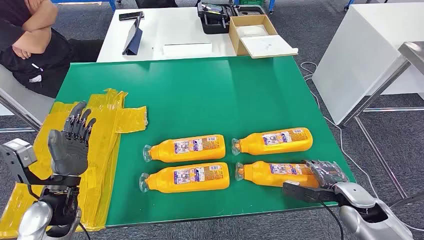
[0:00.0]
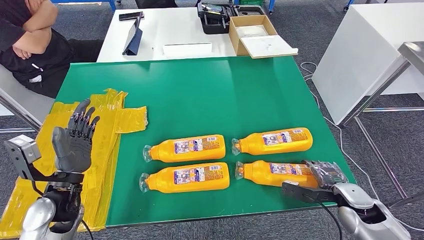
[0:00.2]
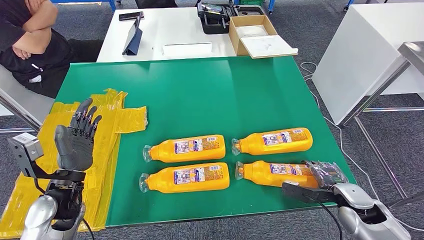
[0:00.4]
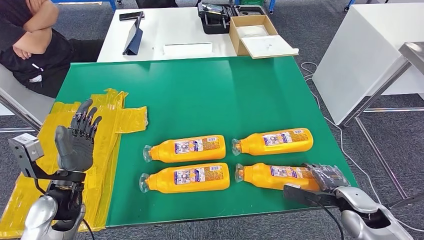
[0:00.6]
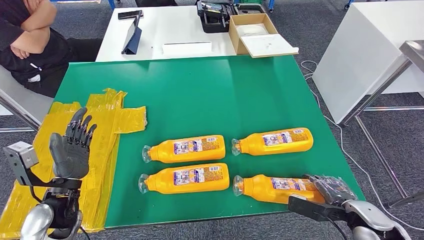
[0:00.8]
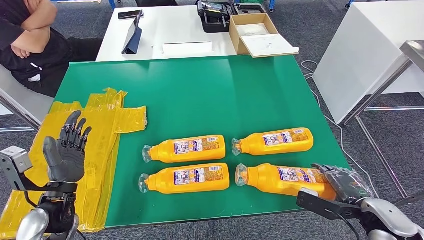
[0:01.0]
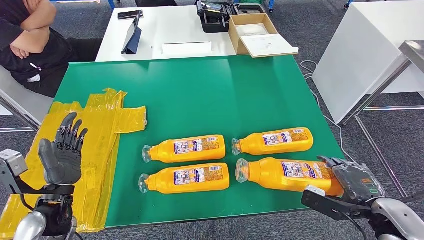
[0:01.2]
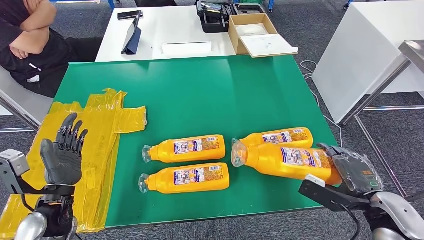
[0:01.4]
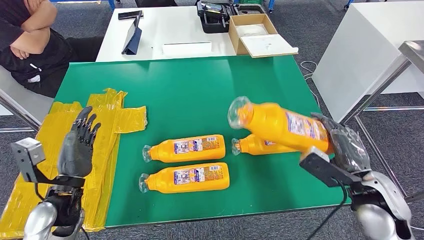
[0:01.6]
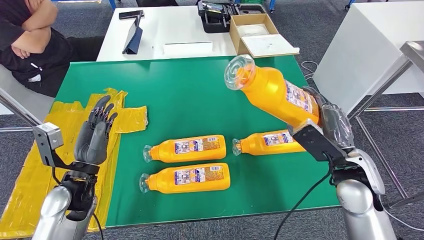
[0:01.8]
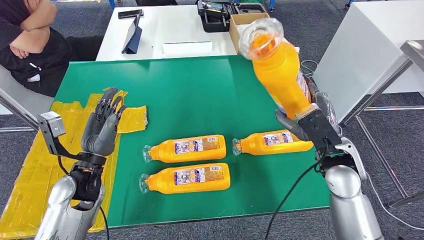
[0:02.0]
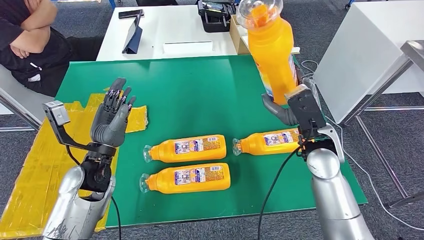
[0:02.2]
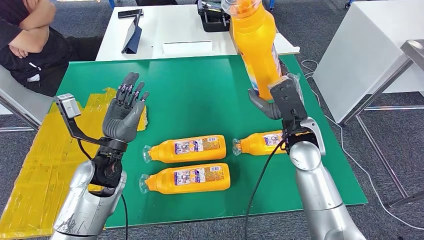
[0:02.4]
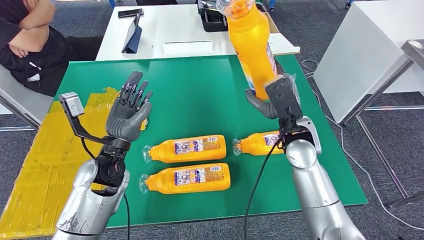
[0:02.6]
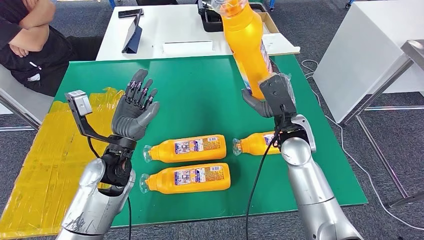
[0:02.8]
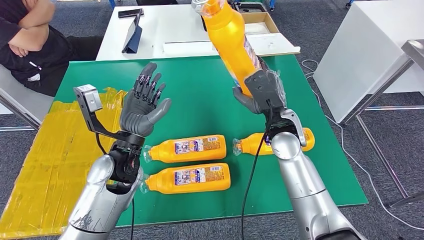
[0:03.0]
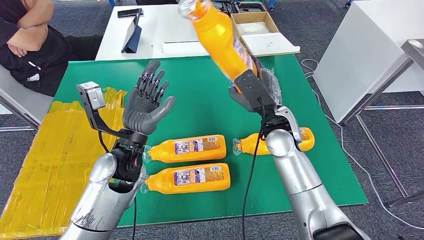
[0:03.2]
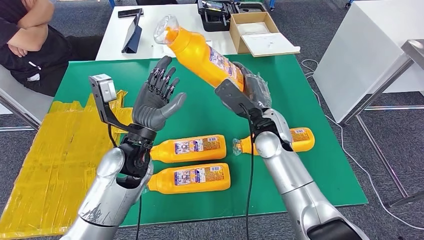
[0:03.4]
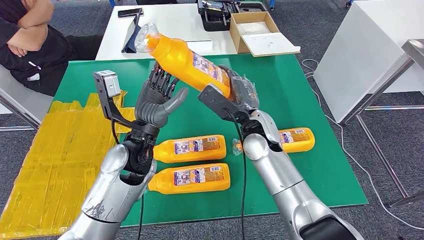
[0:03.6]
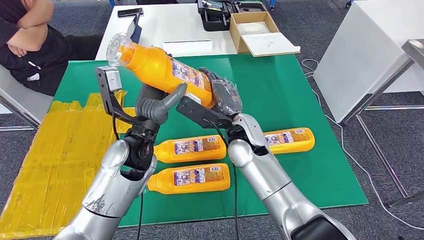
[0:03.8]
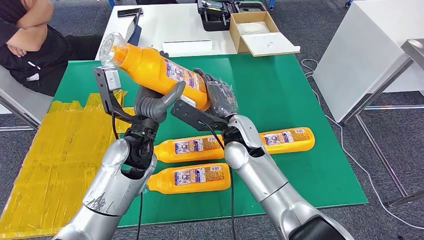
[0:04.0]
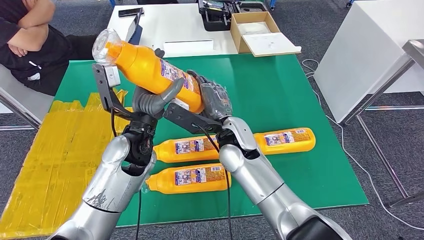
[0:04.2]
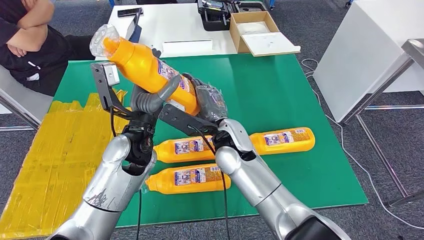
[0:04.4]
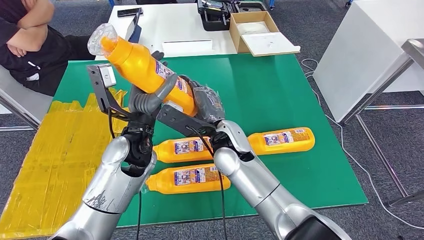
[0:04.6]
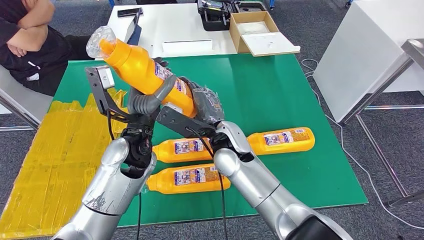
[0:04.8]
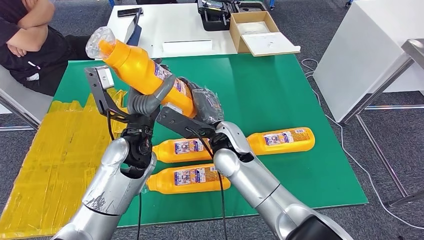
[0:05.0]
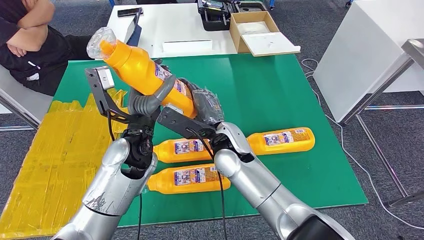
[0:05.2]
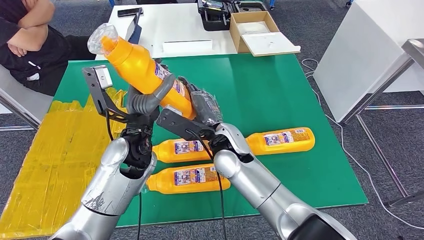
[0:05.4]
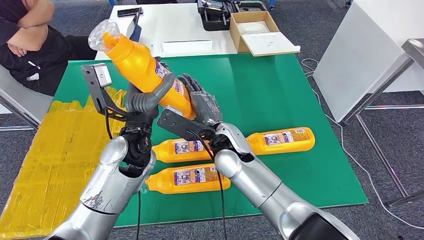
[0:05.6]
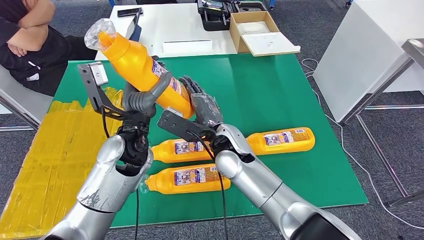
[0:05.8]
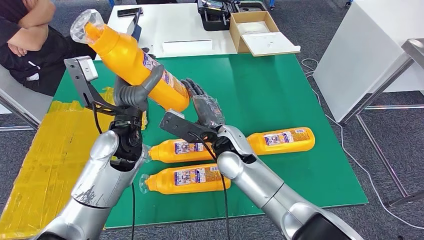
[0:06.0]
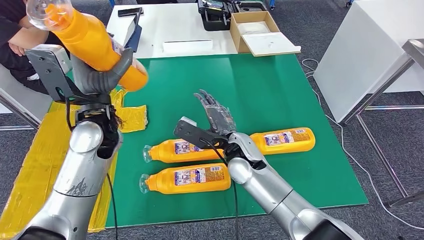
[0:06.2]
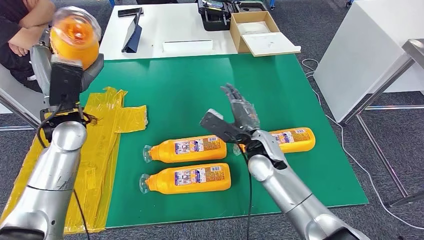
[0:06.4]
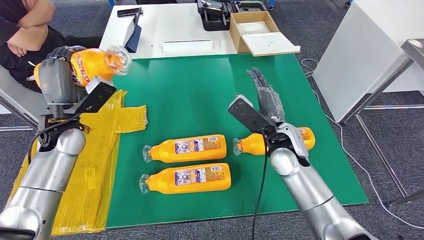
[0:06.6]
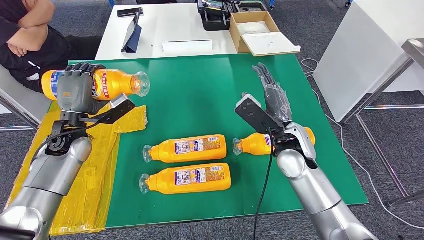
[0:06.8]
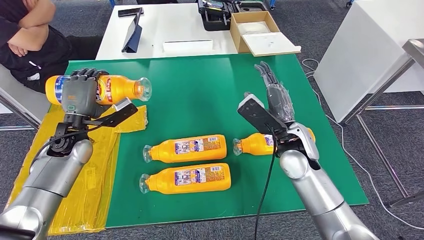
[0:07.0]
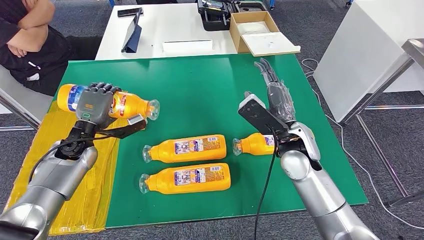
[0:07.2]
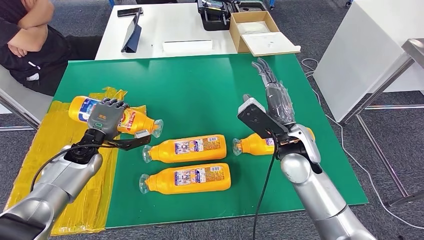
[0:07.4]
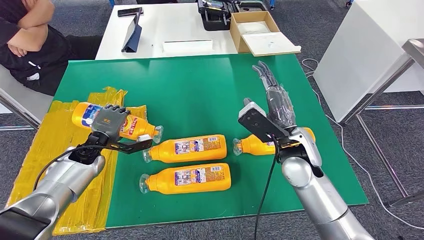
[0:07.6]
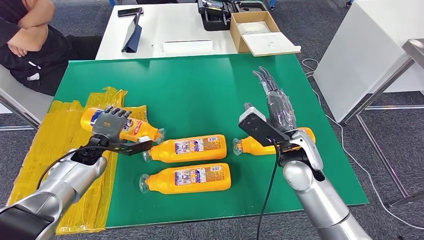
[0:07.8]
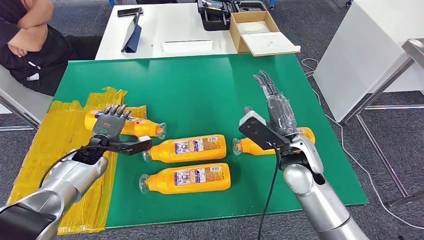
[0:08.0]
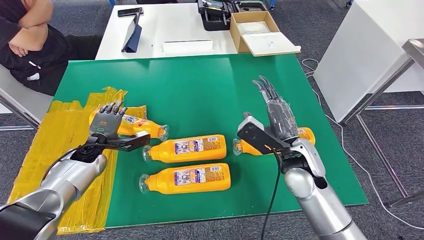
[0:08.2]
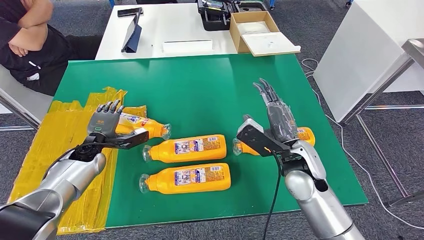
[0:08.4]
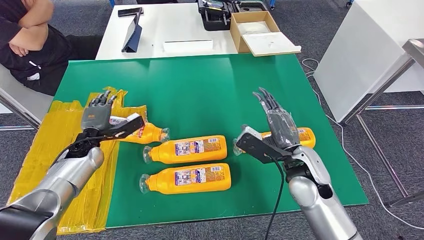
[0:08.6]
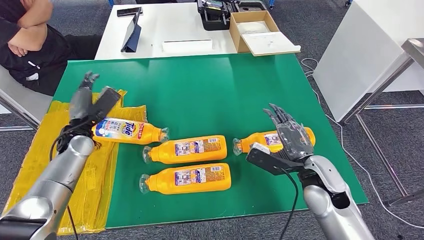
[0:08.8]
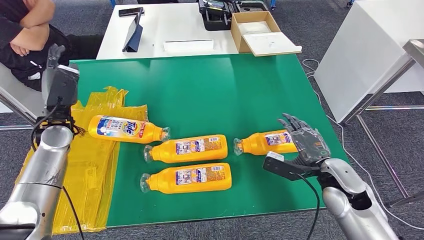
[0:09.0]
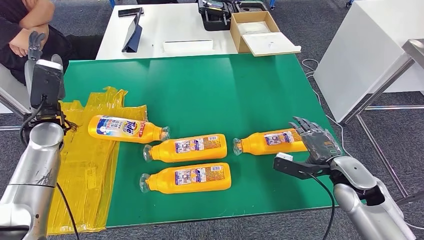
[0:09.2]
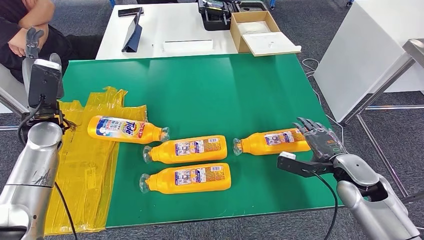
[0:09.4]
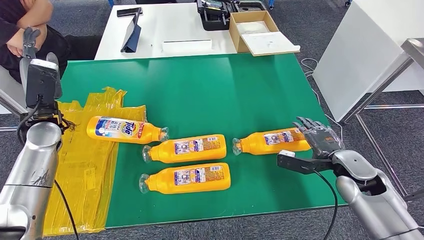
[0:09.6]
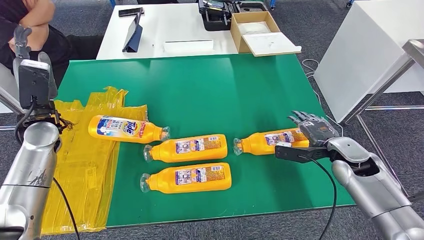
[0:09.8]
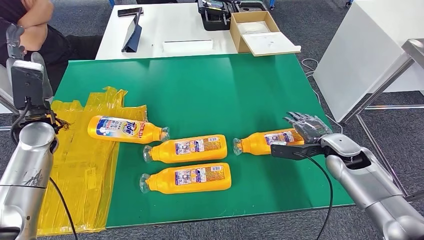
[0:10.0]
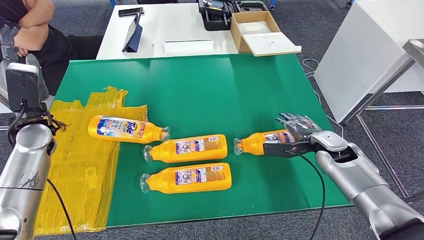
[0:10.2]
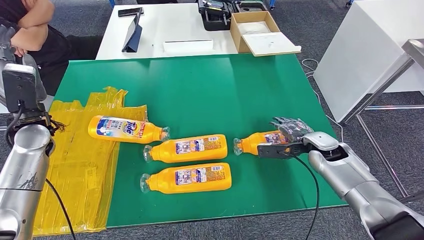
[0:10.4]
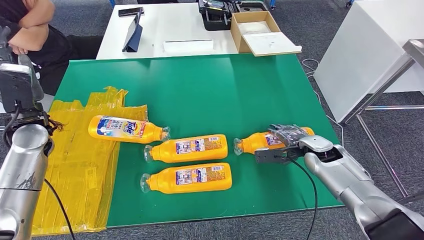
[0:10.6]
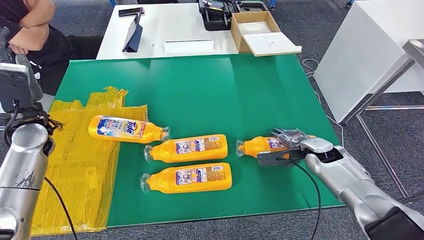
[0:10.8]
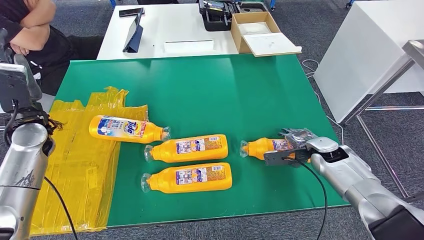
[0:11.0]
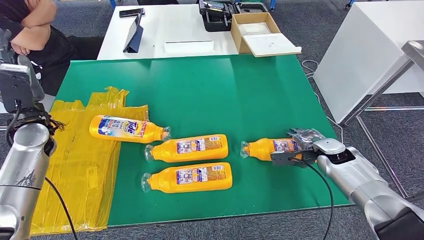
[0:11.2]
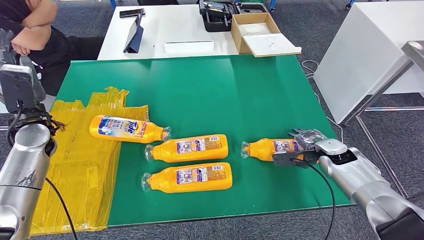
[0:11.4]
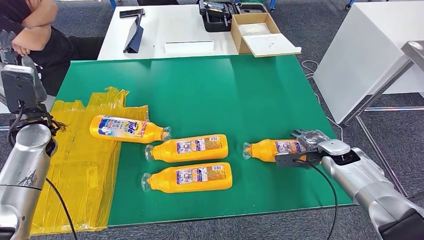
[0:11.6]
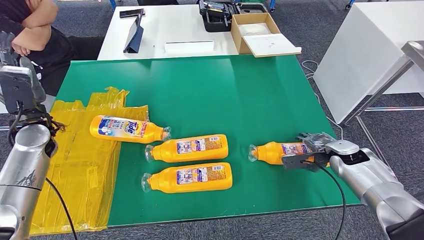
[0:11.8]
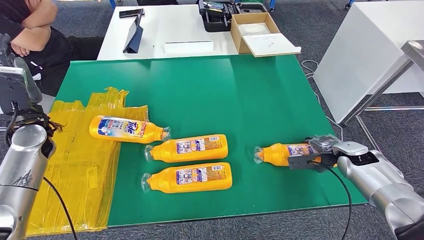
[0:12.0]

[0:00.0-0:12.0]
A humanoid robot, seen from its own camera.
Step, 0:00.0 to 0:04.2: Take the fast-moving consumer goods bottle from the table.
Step, 0:04.6 to 0:08.2: Flip the fast-moving consumer goods bottle to the front side.
0:04.4 to 0:06.0: The hands move only a little.
0:10.4 to 0:12.0: The right hand is displaced to the right by roughly 10 cm.

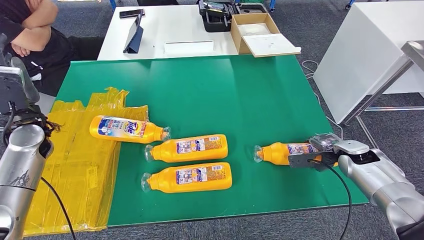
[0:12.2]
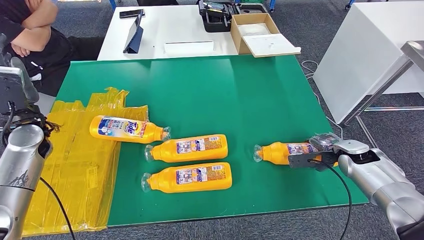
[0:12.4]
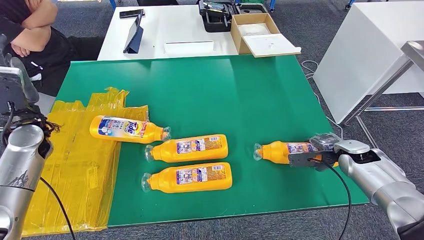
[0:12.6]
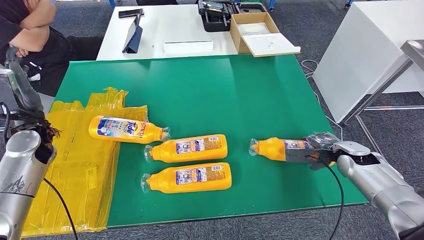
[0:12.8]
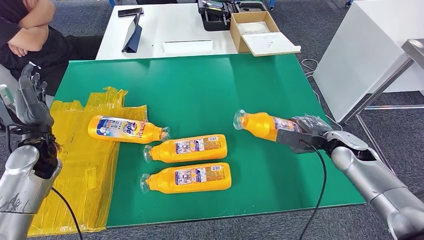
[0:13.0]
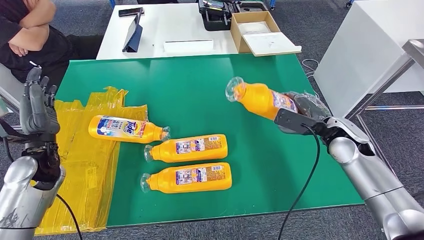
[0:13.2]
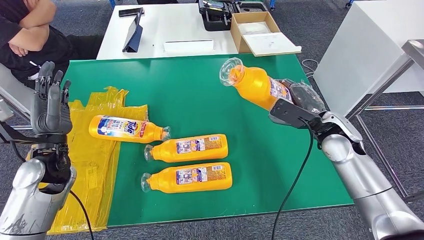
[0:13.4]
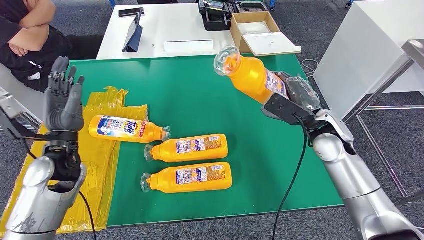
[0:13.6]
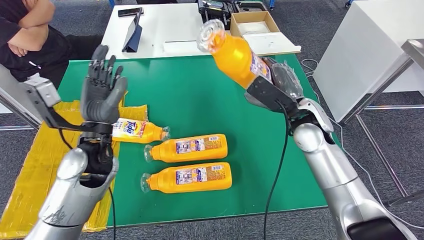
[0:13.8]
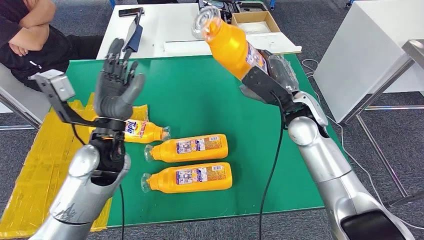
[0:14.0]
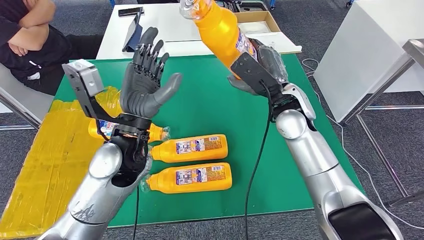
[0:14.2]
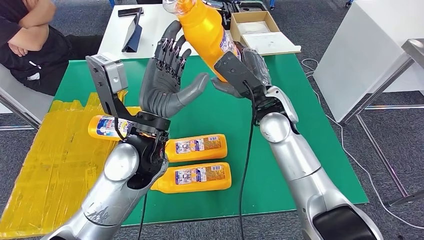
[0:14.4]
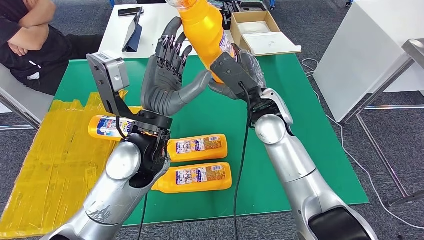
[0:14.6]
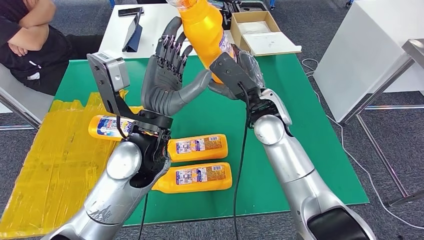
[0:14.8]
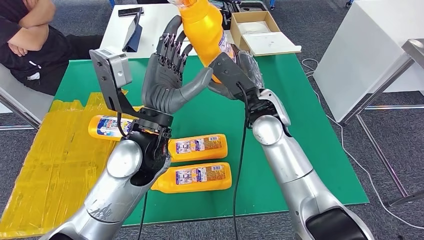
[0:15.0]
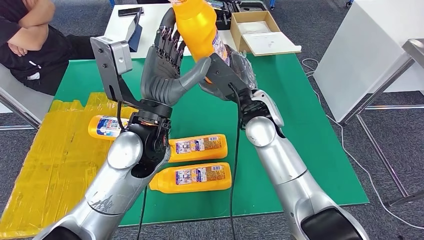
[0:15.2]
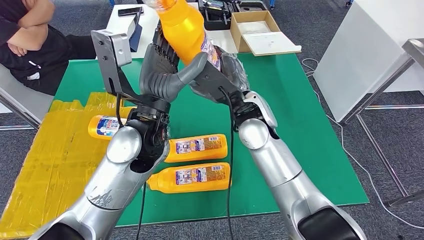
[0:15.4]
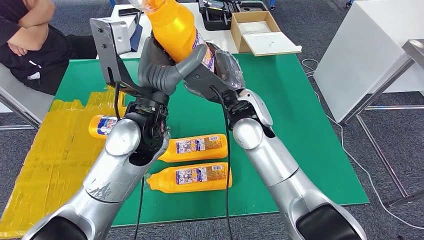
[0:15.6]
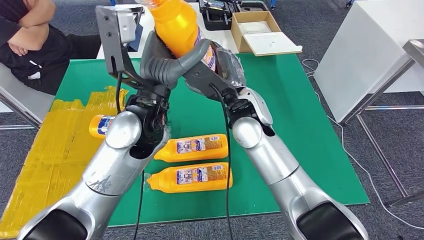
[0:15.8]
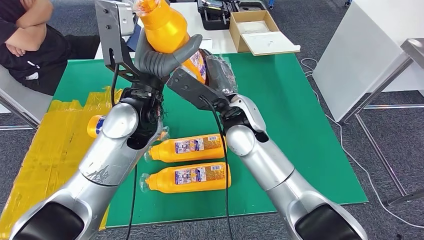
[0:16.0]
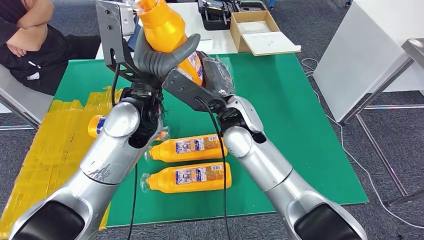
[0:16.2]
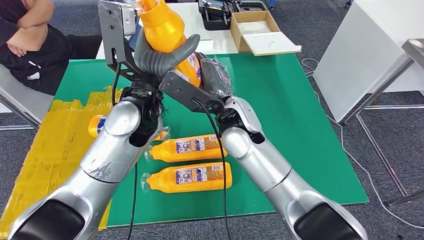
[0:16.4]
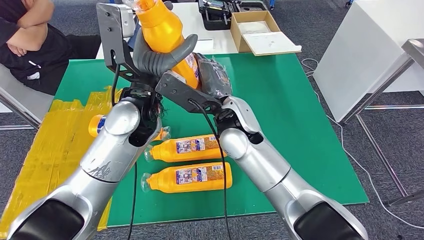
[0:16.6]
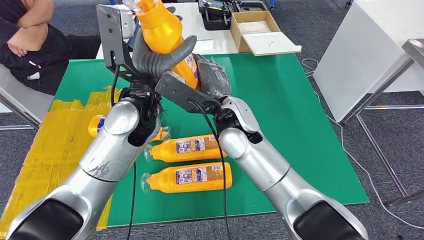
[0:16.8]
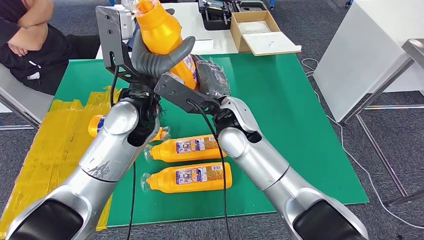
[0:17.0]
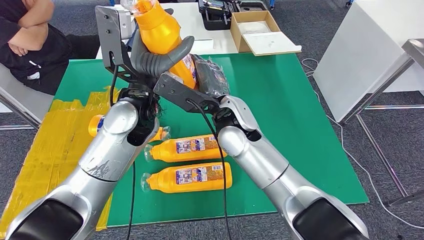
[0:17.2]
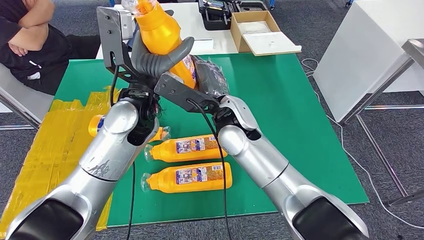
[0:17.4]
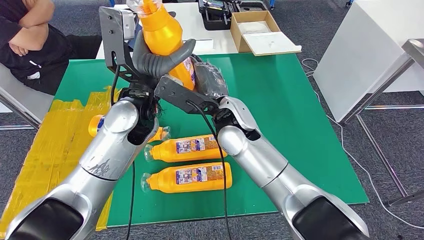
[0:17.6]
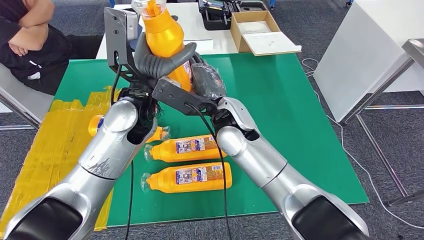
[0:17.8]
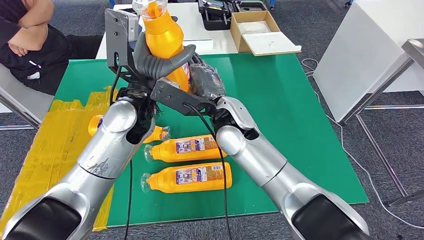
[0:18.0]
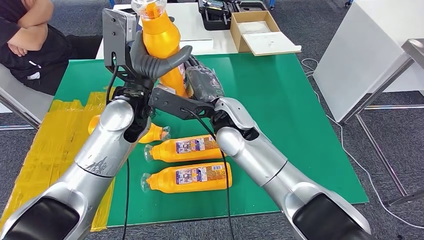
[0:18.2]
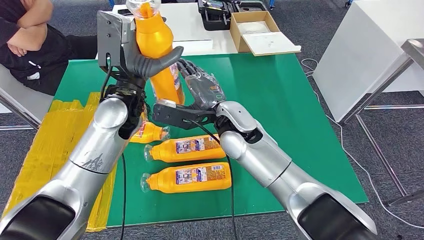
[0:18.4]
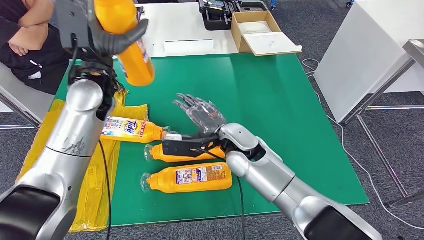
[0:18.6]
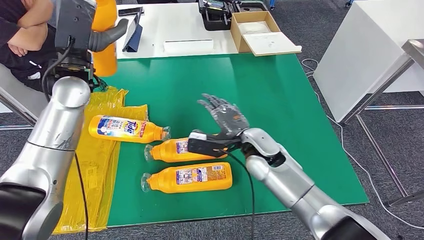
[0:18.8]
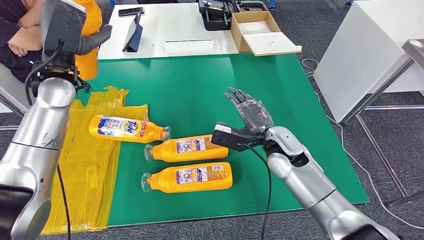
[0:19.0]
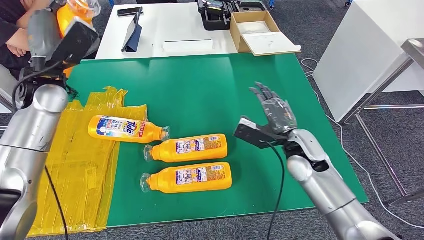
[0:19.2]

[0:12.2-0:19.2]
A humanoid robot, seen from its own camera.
Step, 0:12.2 to 0:15.0: Pick up the fast-moving consumer goods bottle from the table.
0:16.4 to 0:17.8: The hands move only a little.
